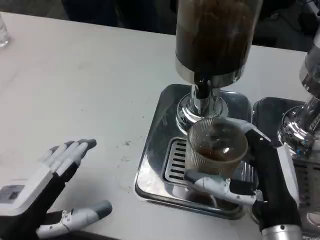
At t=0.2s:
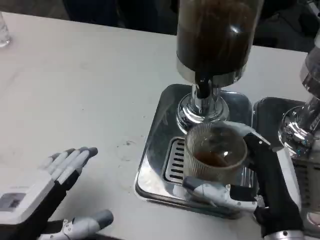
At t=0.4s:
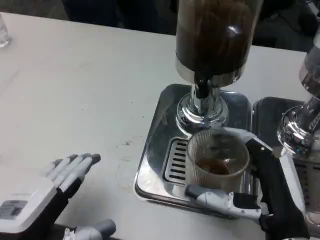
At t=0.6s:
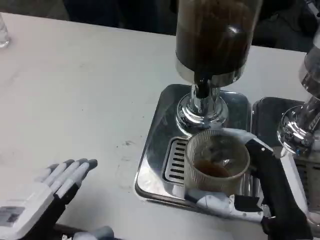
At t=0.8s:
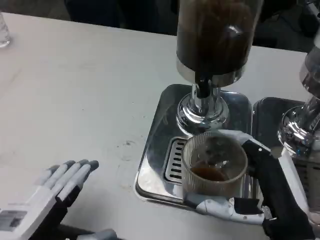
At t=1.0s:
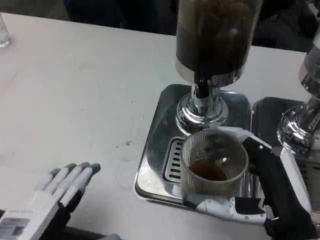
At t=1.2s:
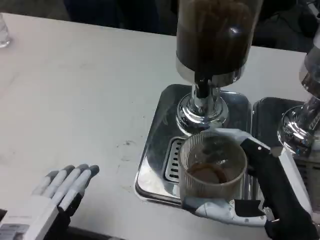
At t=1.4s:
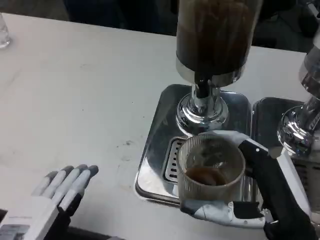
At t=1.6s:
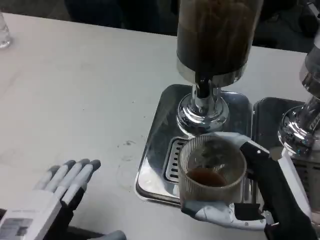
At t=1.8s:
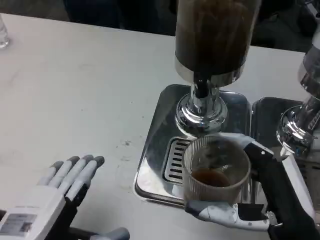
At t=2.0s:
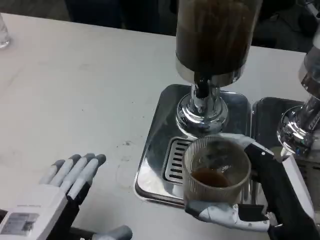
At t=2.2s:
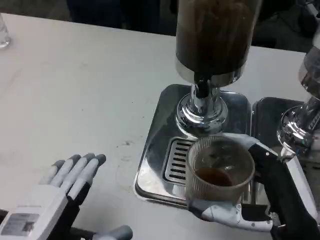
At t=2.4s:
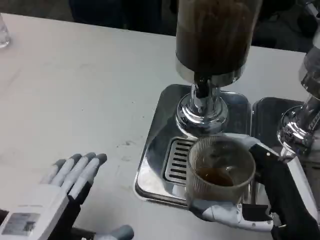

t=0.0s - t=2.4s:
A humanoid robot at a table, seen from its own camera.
Task of the whole recording: Grasp the cup under the faucet to collect the drink, then remove the cup.
t=0.0s - t=1.2s: The left hand is displaced backward by roughly 5 cm.
t=1.2s - t=2.4s: The hands stay close to where they were, moving slightly.
